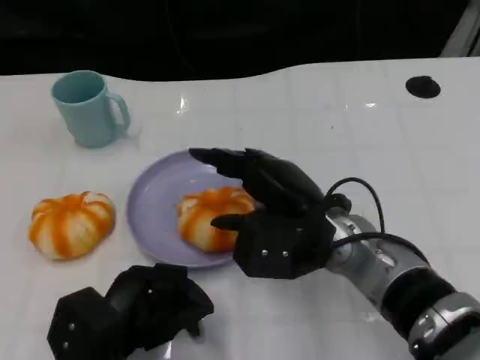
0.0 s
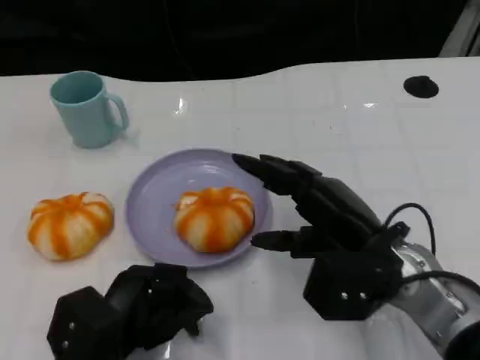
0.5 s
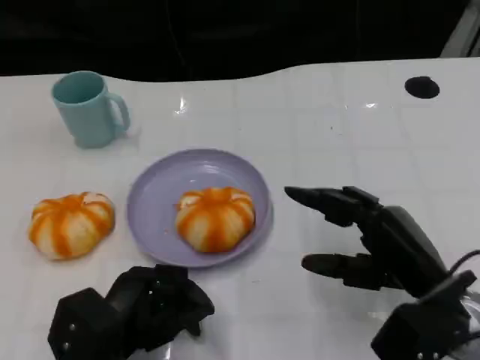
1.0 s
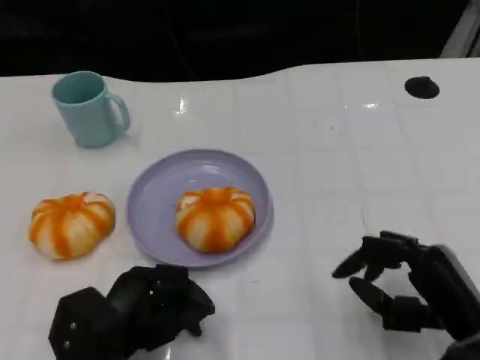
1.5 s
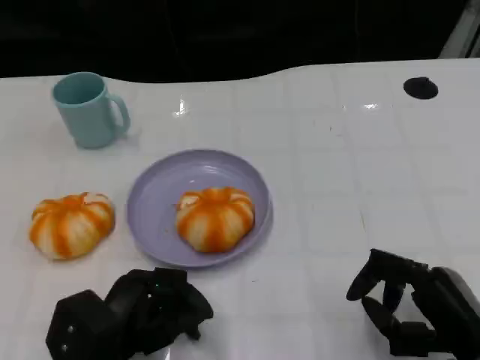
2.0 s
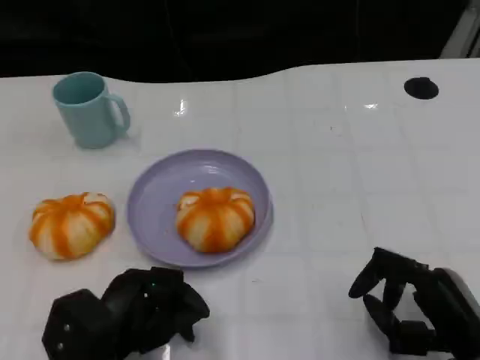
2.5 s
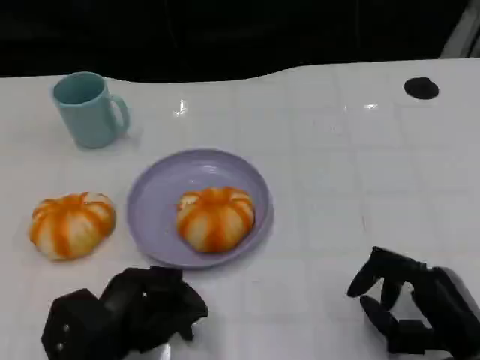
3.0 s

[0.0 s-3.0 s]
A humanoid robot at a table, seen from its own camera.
Task of the whole recording: Grasp the bread from the table and place it into the plate.
0.0 to 1.5 s: The right hand moves to the right, backward and downward, about 20 cm.
1.5 to 3.0 s: The hands make only small movements.

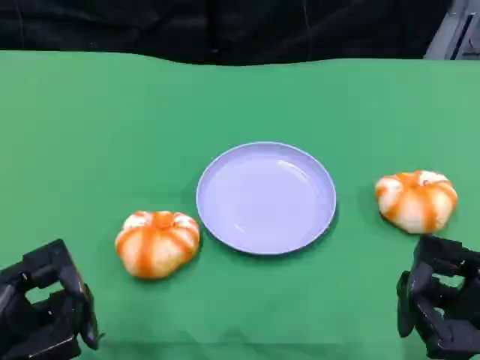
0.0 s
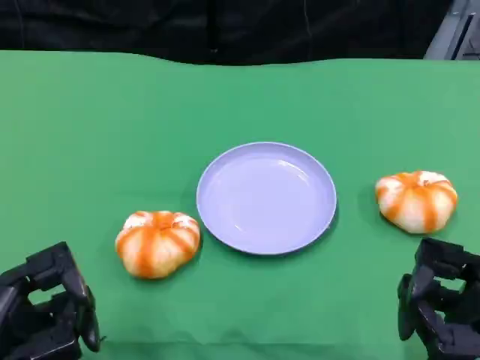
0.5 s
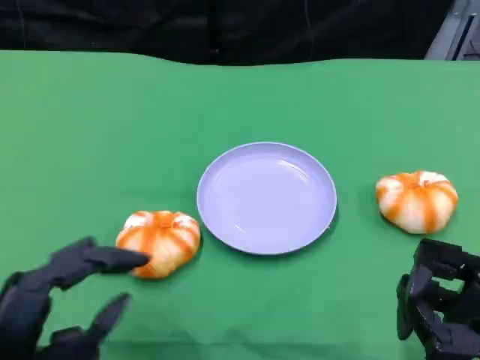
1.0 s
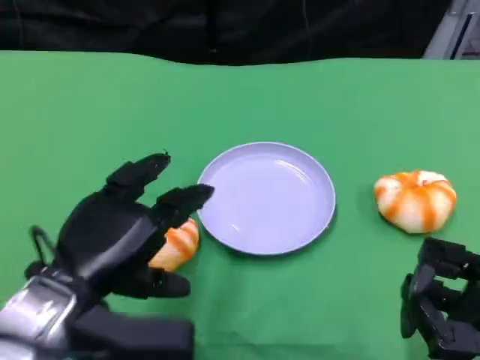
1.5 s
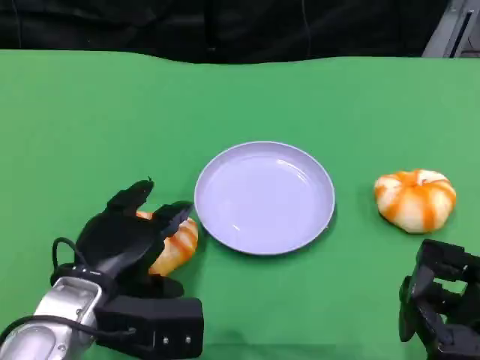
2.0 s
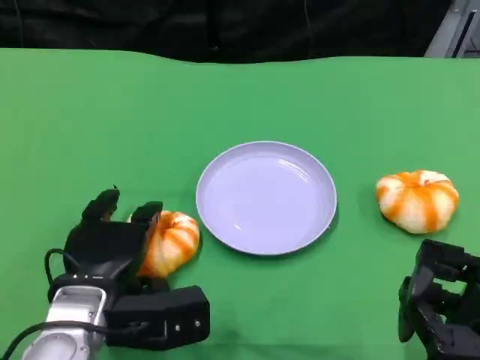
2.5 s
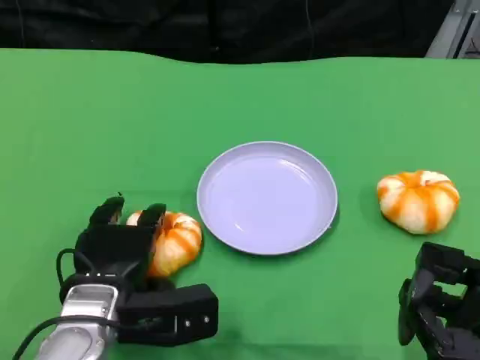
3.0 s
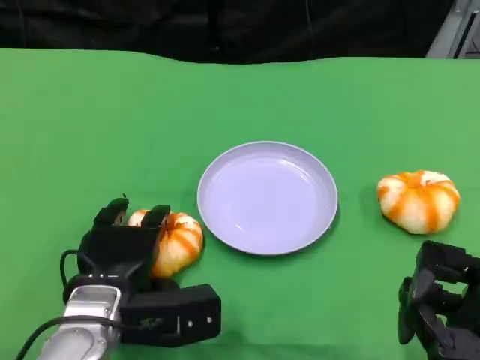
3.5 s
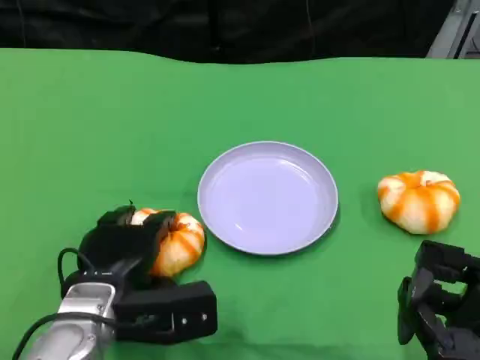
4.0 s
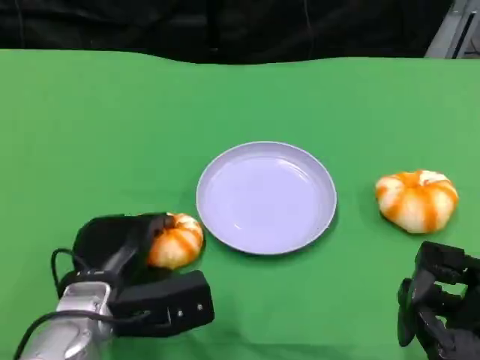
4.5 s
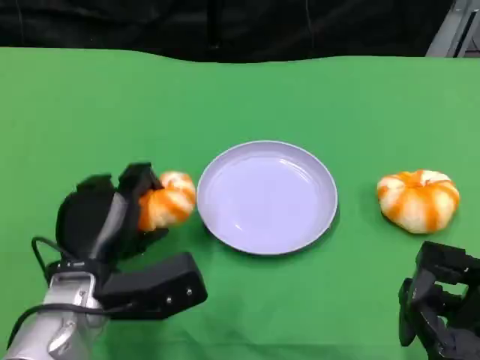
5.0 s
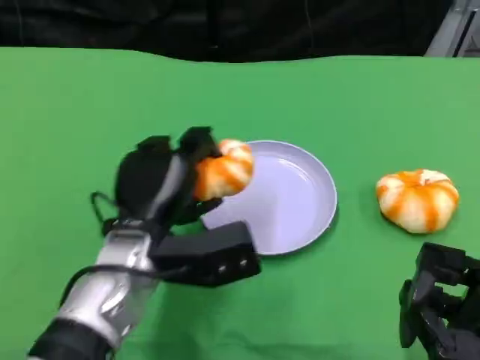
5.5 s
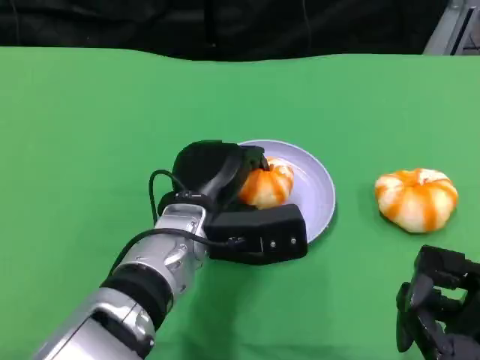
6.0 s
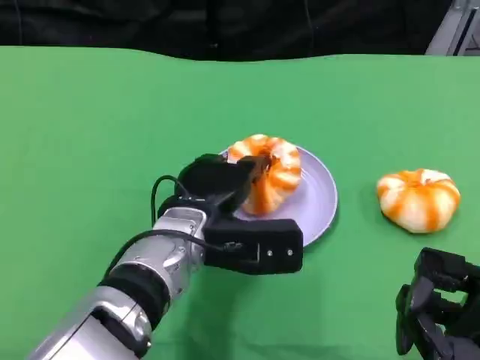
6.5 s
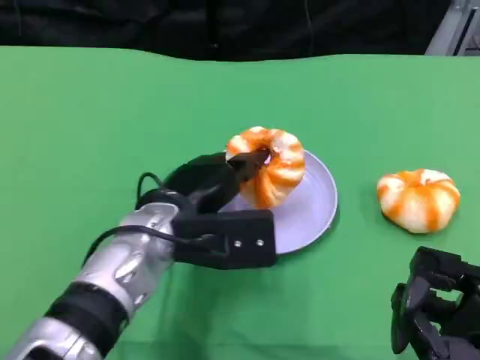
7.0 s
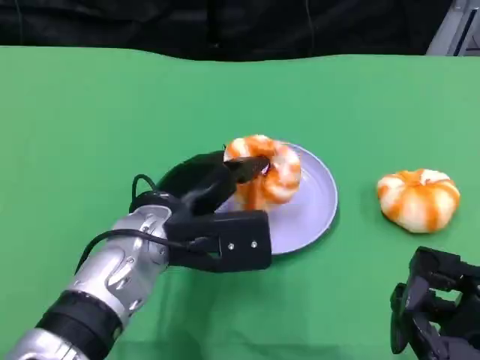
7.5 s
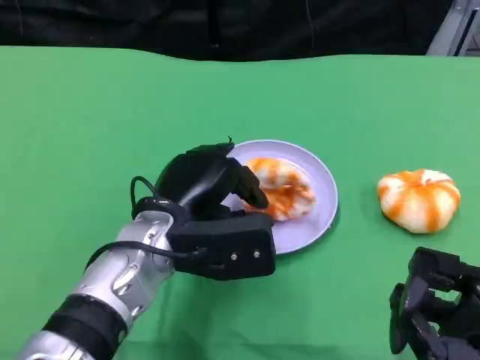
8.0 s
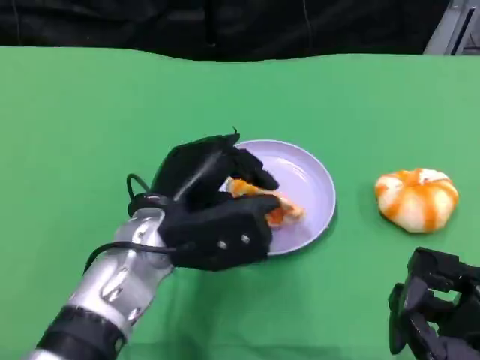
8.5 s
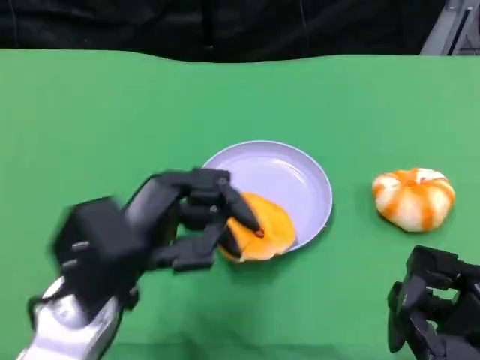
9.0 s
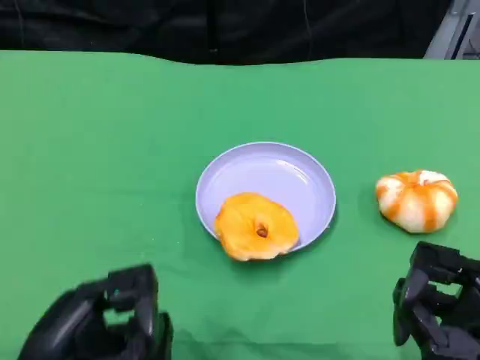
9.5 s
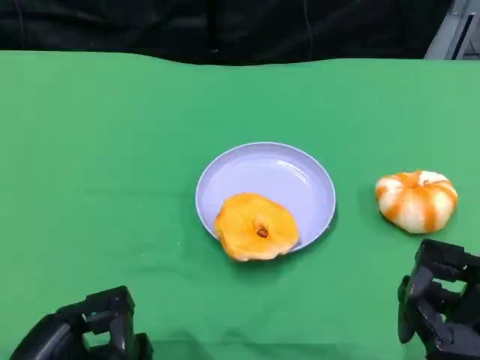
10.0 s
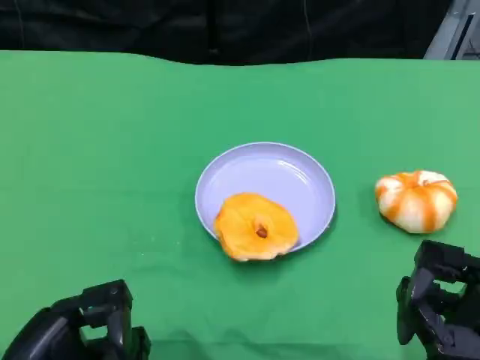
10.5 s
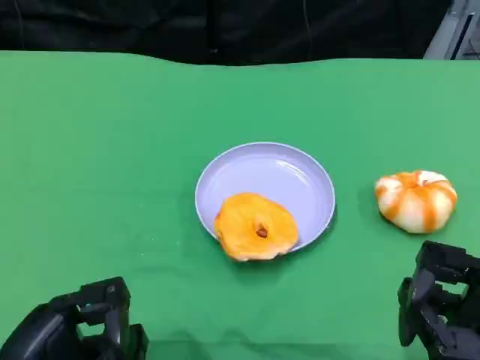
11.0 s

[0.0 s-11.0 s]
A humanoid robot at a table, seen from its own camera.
Task of the whole recording: Grasp the bread from the table and place it into the plate.
0.0 to 2.0 s: The left hand heads forward and to the right, covering approximately 15 cm.
2.0 to 3.5 s: The hands make only small movements.
3.5 to 5.5 s: The left hand shifts about 5 cm upward.
7.5 to 9.0 s: The left hand travels backward and to the left by some 10 cm.
9.0 to 11.0 s: The left hand shifts some 10 cm backward and to the left.

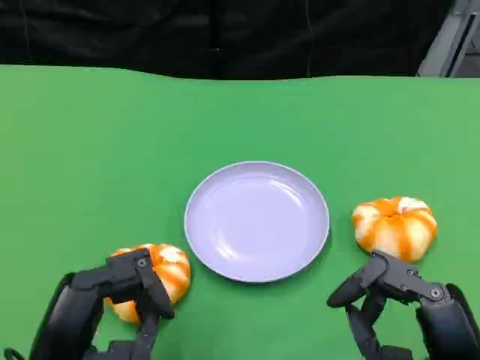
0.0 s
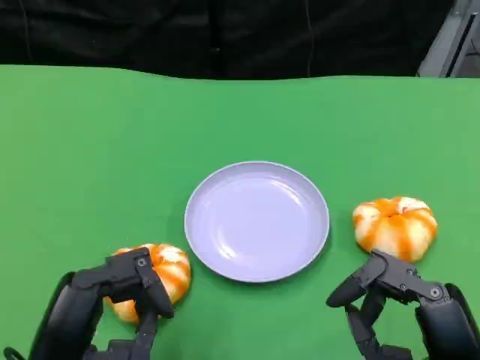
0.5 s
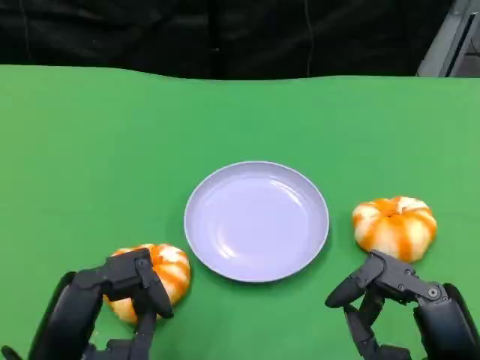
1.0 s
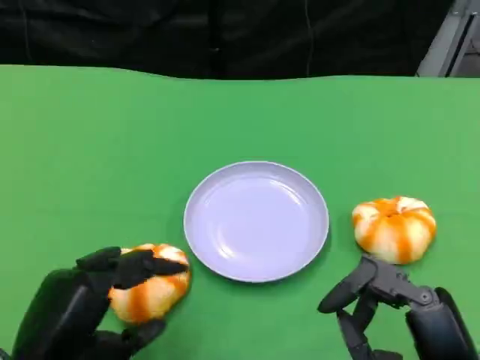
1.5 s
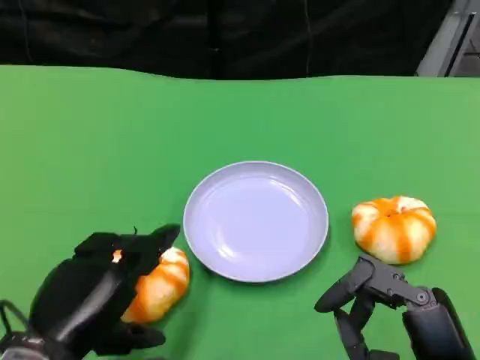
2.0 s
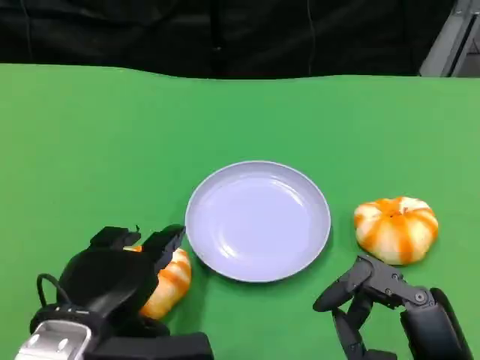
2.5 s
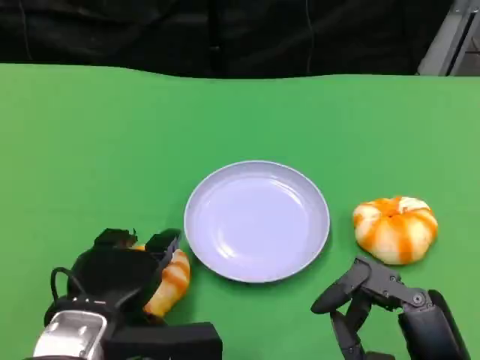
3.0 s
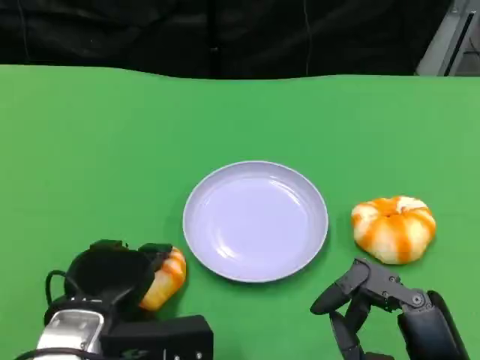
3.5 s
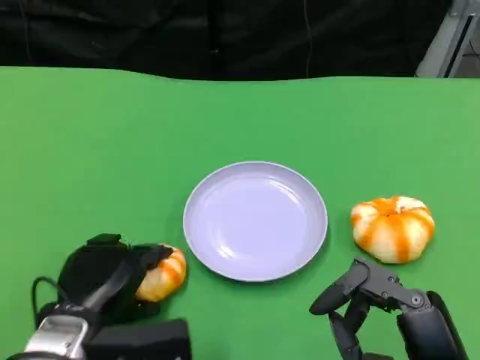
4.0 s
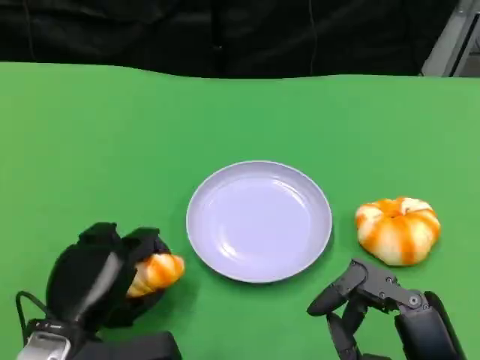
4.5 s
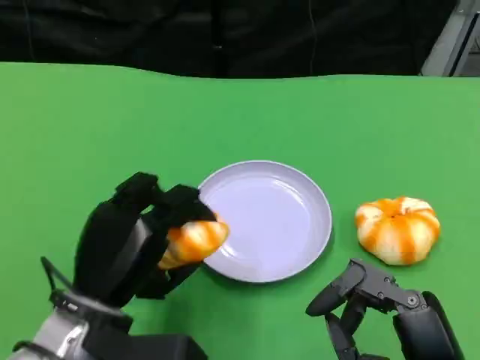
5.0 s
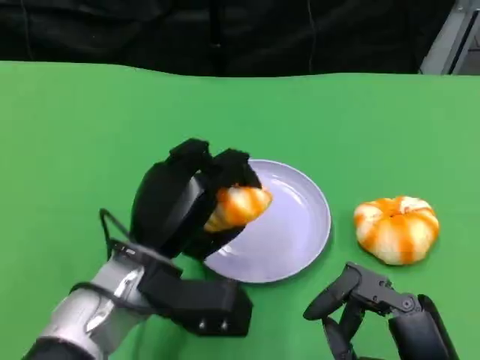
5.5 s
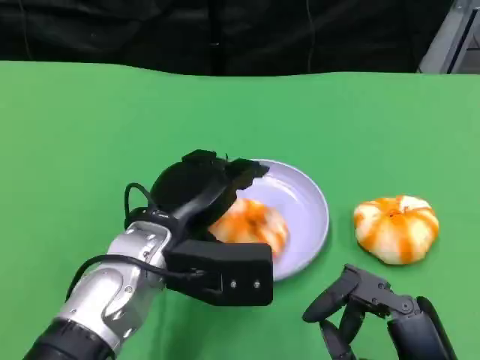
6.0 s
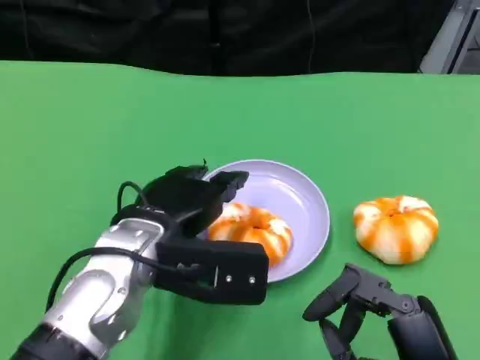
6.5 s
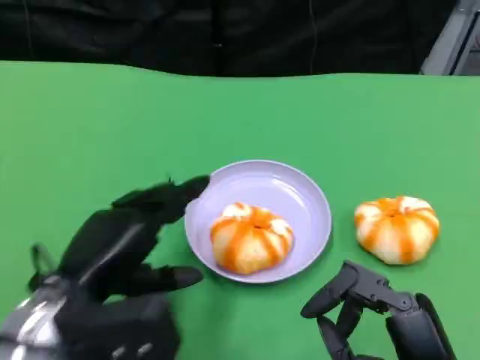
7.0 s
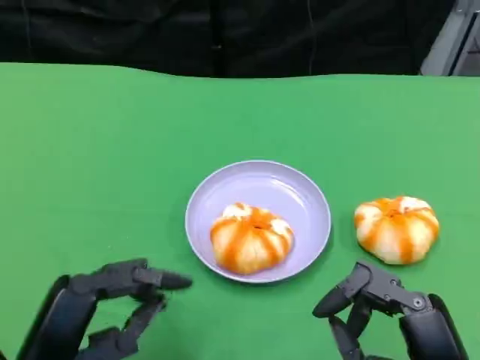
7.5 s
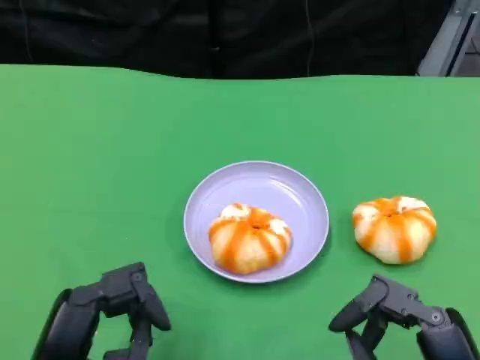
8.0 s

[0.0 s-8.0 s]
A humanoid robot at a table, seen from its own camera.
Task of the whole recording: Grasp the bread from the table and place it into the plate.
2.0 to 4.0 s: The left hand heads downward, covering roughly 5 cm.
4.0 to 6.0 s: The left hand heads to the right, upward and forward, covering roughly 15 cm.
6.0 to 8.0 s: The left hand shifts approximately 15 cm backward and to the left.

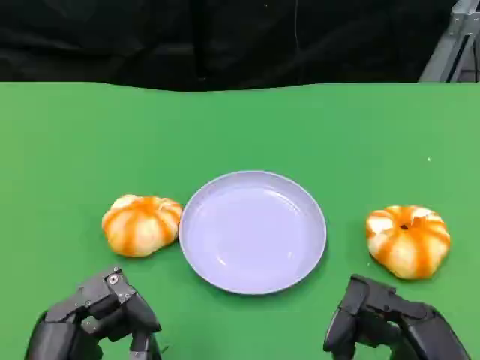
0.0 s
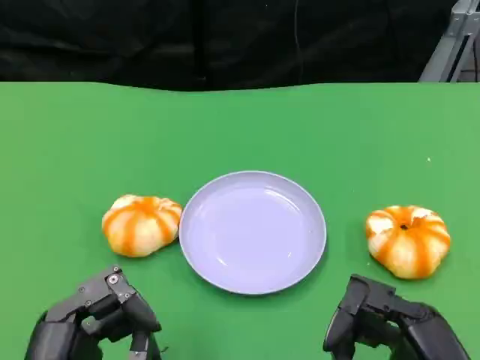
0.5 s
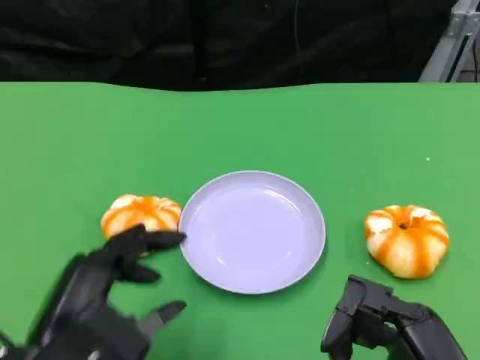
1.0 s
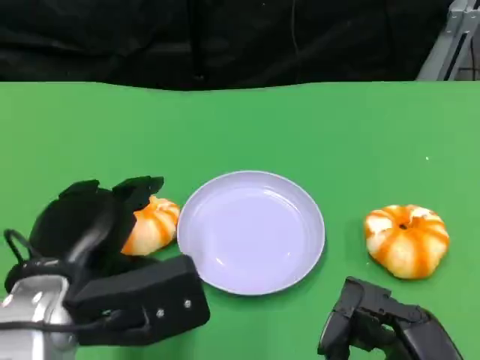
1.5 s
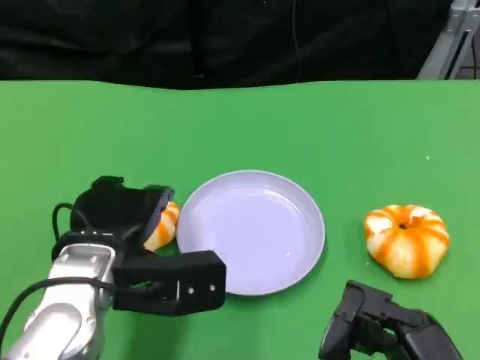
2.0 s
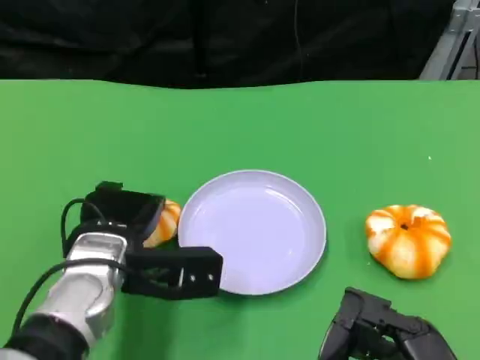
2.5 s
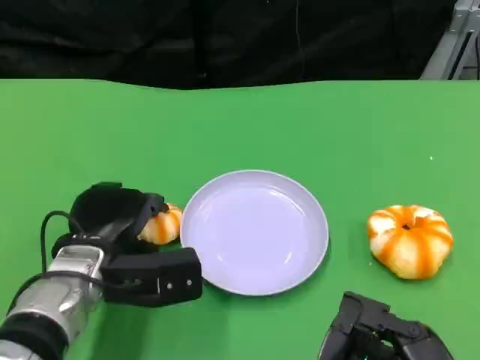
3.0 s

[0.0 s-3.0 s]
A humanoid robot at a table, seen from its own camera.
Task of the whole recording: Grasp the bread from the table and place it into the plate.
0.0 to 1.5 s: The left hand travels forward and upward by roughly 10 cm.
1.5 to 3.0 s: The left hand travels downward and forward by some 10 cm.
